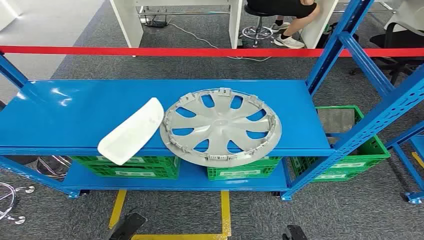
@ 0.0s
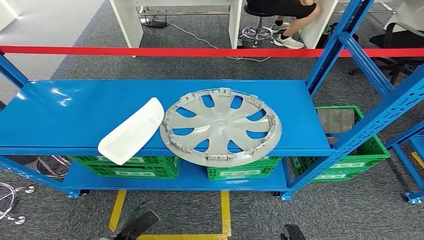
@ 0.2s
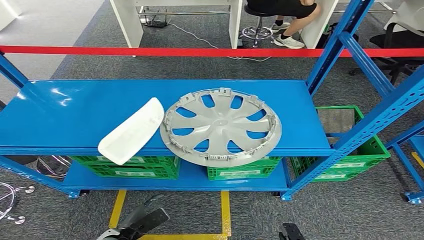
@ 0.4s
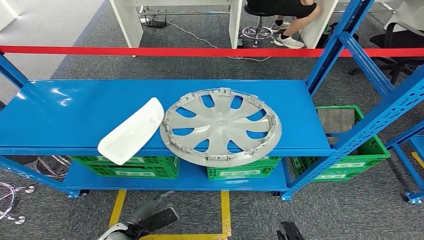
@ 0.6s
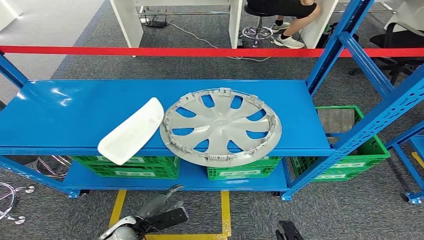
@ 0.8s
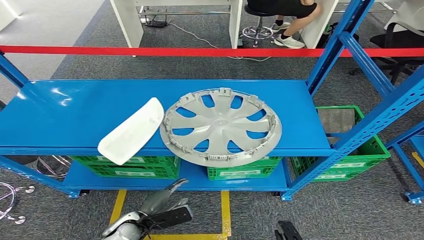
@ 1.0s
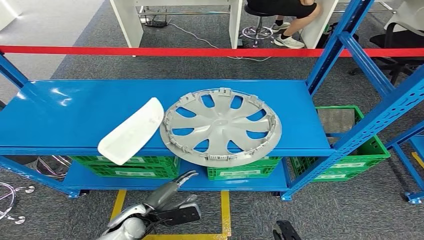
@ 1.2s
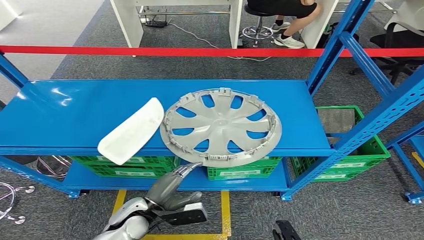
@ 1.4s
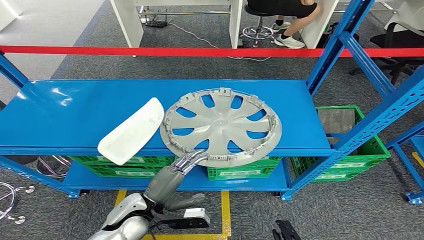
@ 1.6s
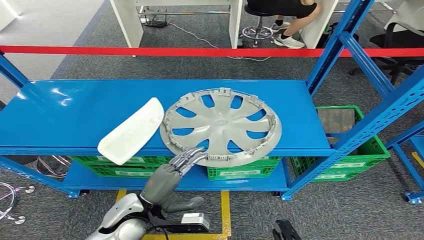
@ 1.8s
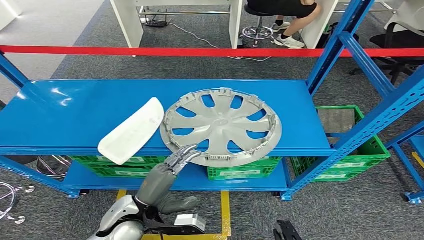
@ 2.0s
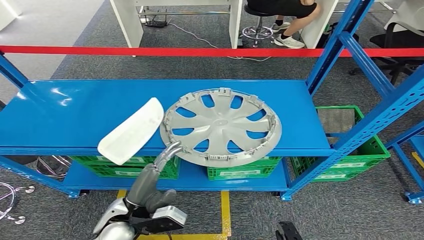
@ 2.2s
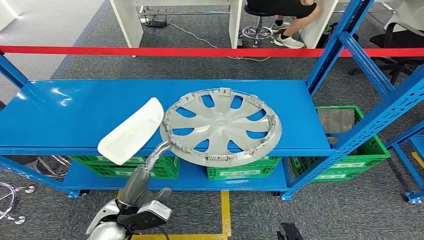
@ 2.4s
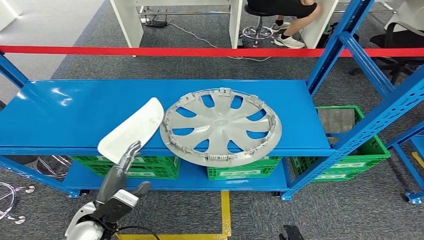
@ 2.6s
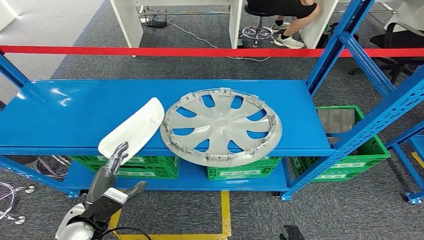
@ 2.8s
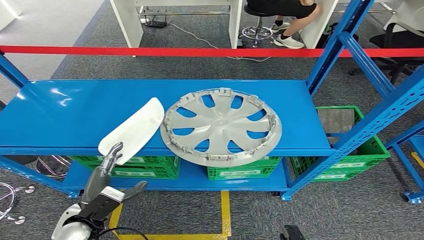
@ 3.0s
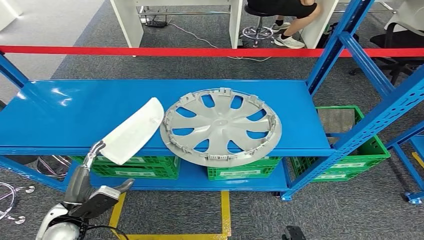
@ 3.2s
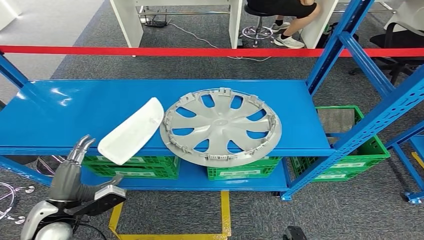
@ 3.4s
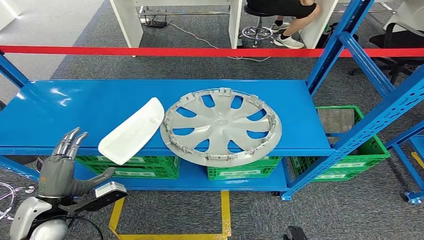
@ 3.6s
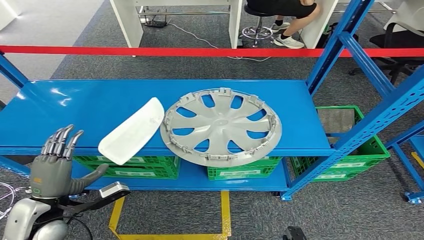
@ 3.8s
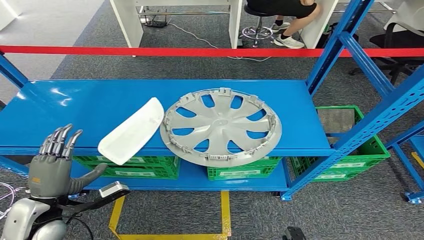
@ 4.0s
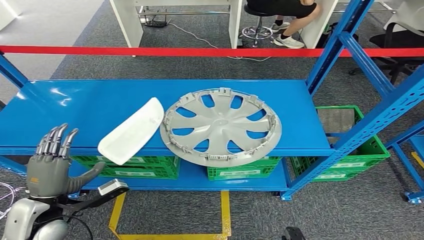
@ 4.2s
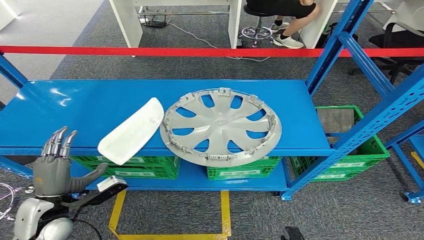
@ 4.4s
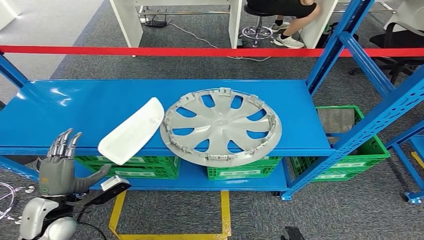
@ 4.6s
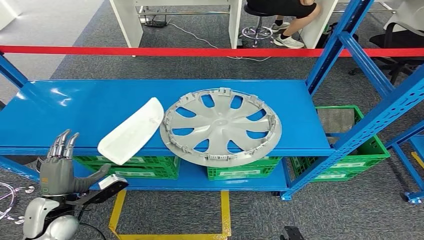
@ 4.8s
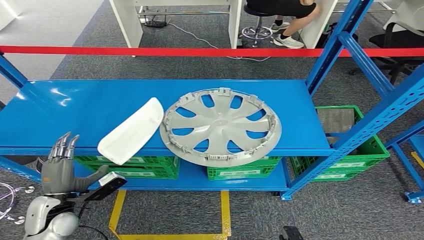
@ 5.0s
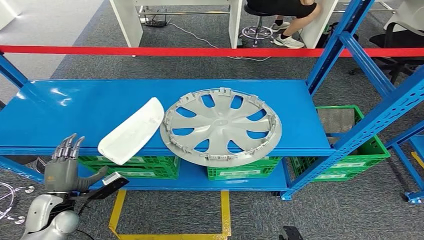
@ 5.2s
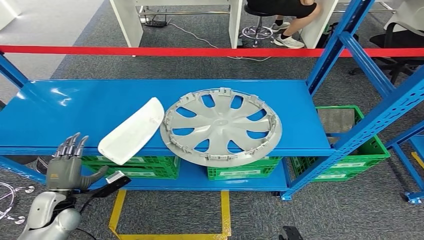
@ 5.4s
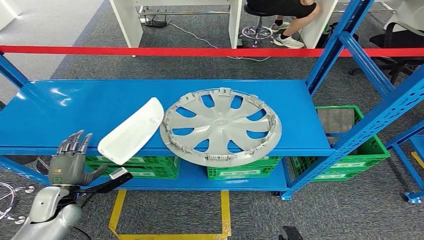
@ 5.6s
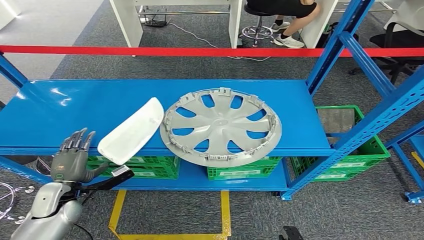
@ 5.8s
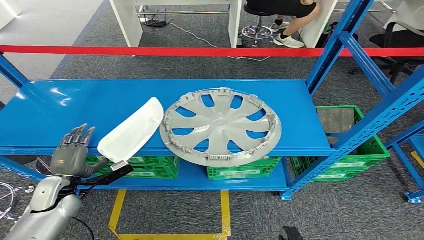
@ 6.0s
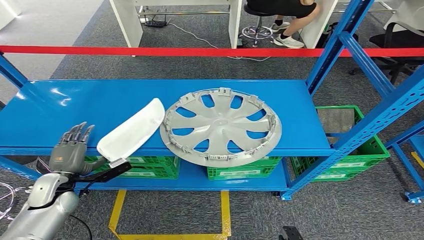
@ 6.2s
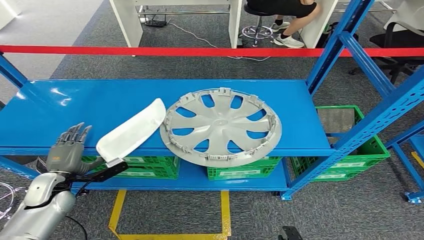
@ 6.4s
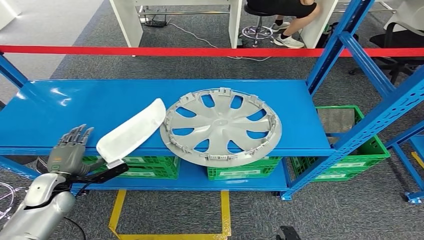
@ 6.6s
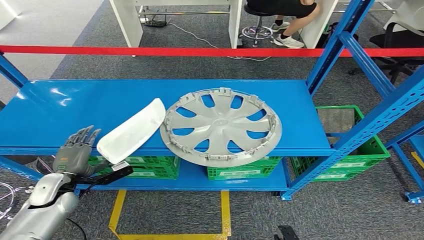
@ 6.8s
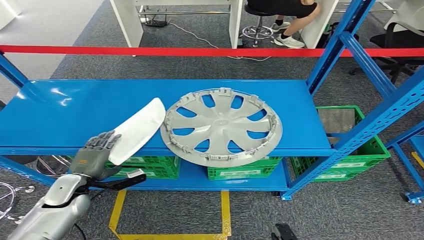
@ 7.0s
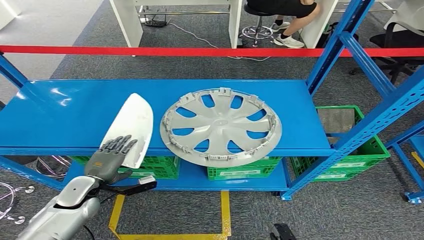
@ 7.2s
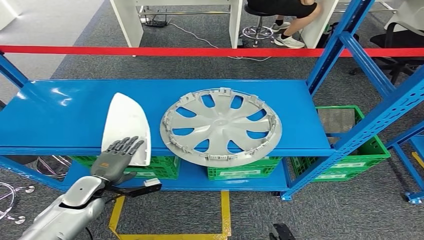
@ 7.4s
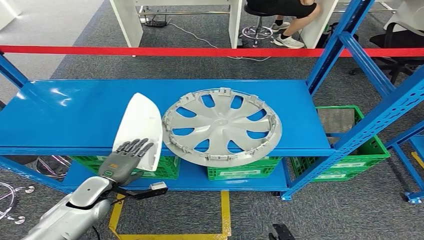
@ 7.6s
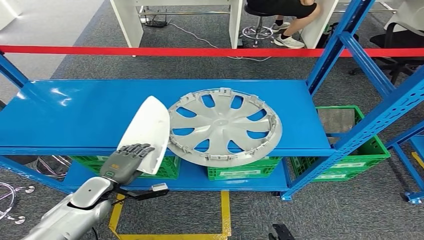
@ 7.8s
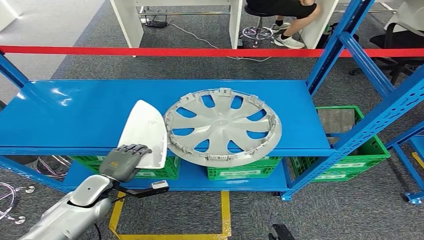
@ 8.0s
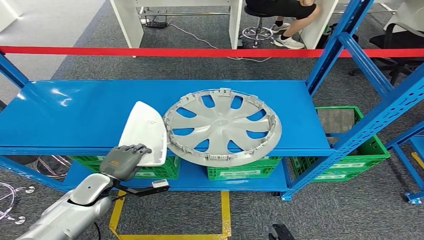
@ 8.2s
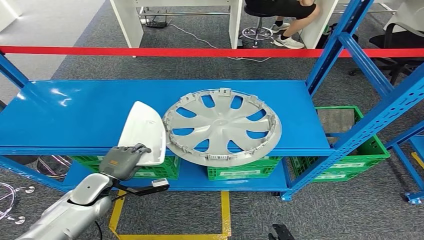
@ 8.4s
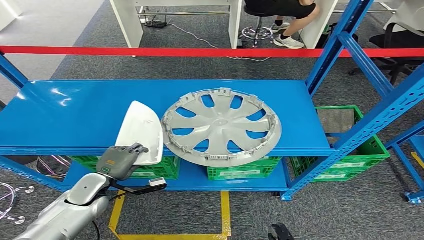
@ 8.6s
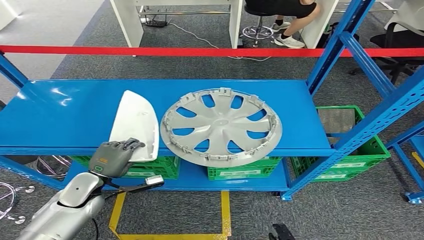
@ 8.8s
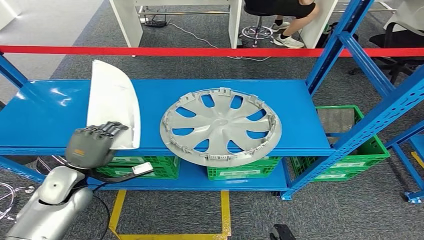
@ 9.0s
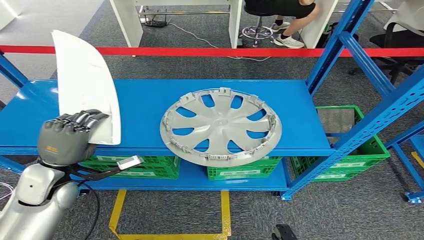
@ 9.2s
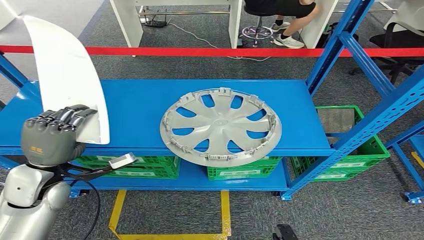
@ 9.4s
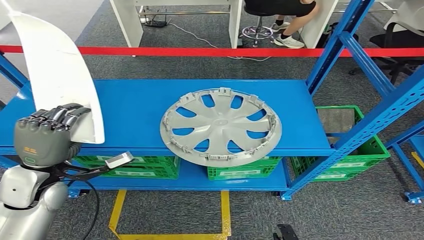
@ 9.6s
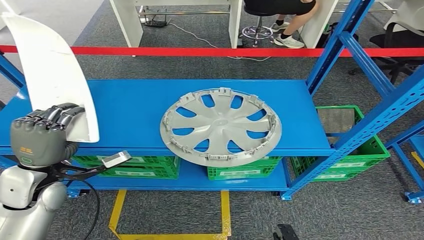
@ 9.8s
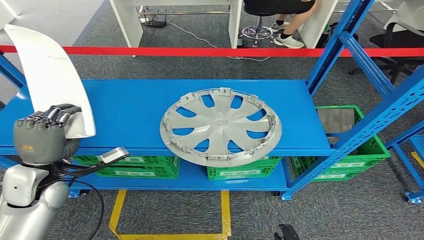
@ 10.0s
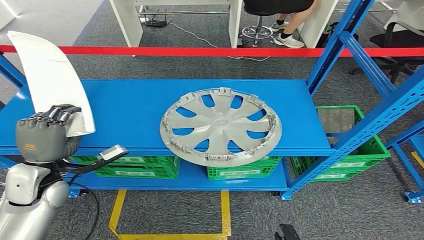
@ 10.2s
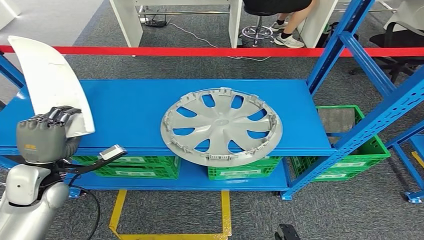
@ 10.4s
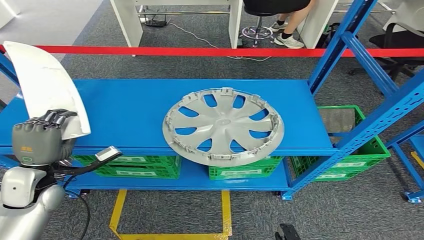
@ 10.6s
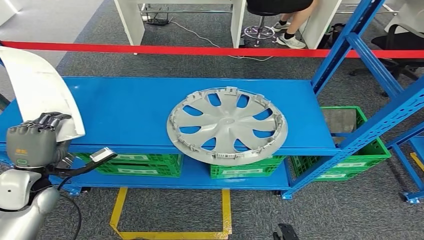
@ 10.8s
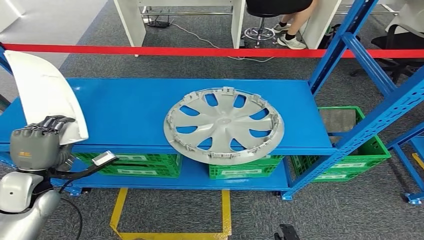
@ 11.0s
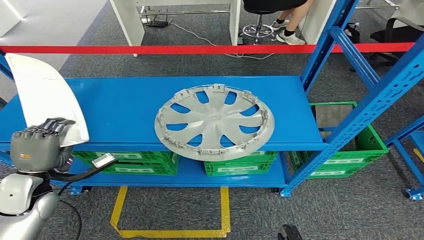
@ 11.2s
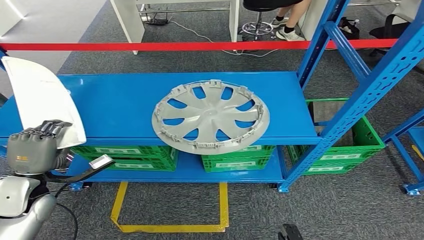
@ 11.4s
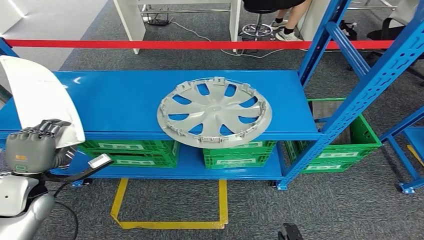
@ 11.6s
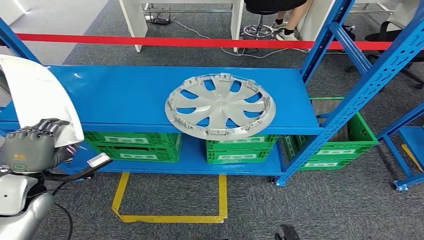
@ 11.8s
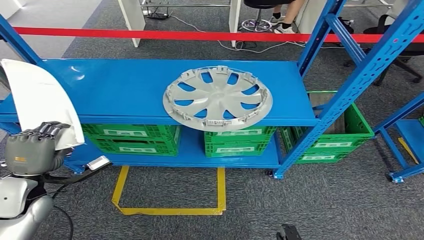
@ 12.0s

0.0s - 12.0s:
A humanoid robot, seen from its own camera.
1.6s - 3.0s: The left hand shifts roughly 10 cm to the left.
3.0s - 4.4s: The left hand heads to the left, covering approximately 5 cm.
4.4s - 6.0s: The left hand shifts approximately 5 cm forward.
6.0s - 7.6s: The left hand moves to the right, about 10 cm.
7.6s - 9.0s: The left hand heads upward, covering some 10 cm.
9.0s - 10.4s: The left hand shifts roughly 5 cm upward.

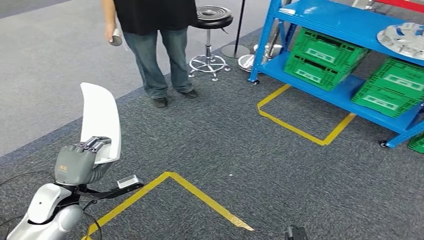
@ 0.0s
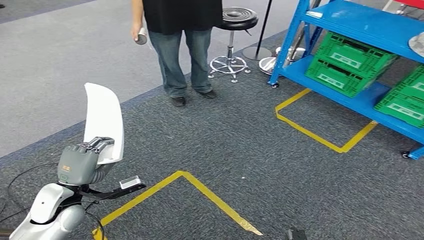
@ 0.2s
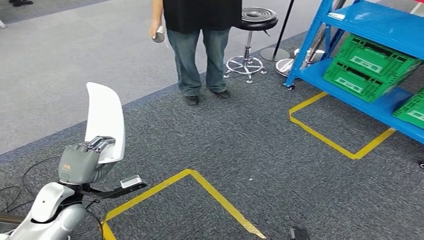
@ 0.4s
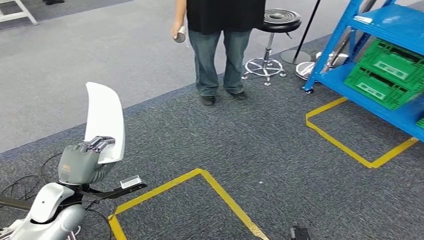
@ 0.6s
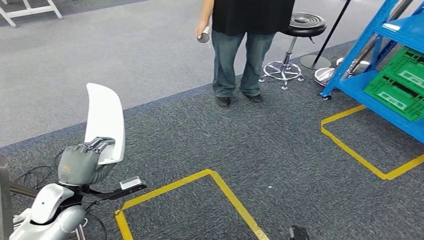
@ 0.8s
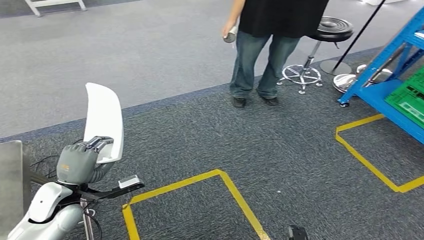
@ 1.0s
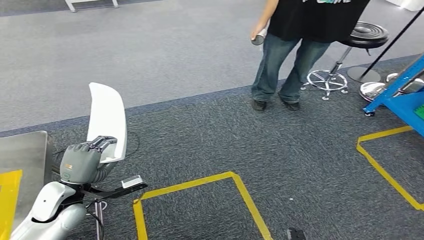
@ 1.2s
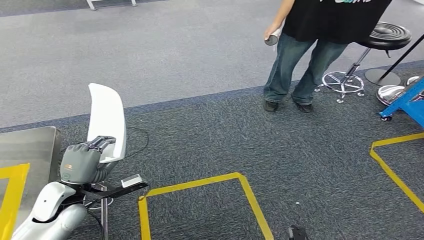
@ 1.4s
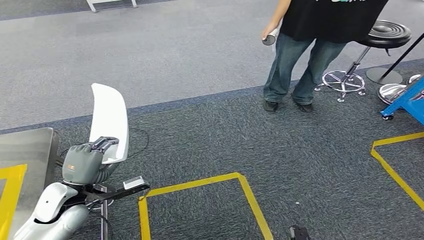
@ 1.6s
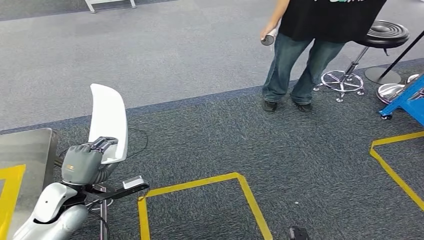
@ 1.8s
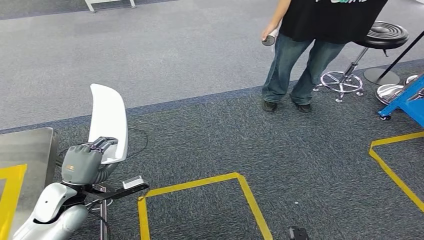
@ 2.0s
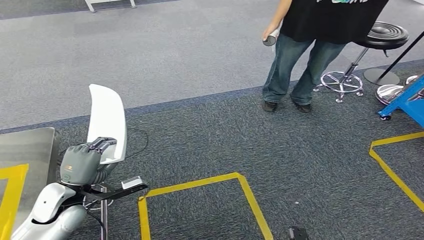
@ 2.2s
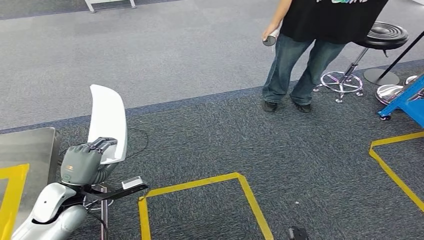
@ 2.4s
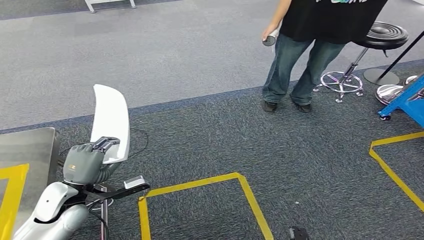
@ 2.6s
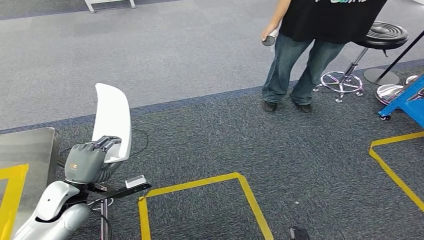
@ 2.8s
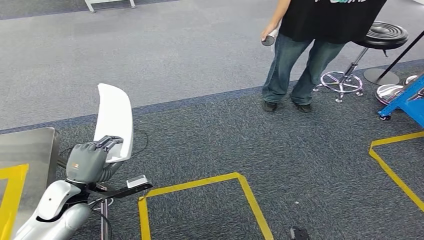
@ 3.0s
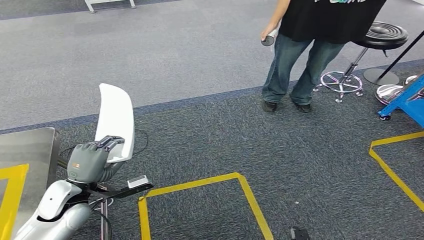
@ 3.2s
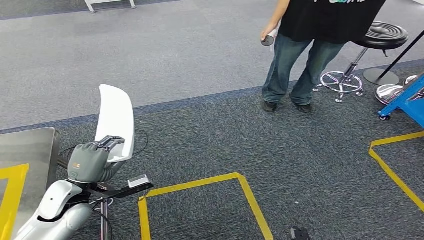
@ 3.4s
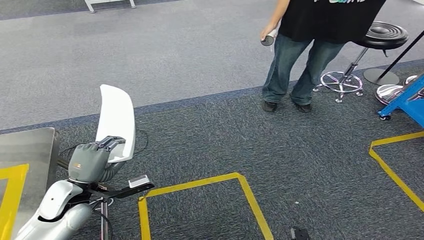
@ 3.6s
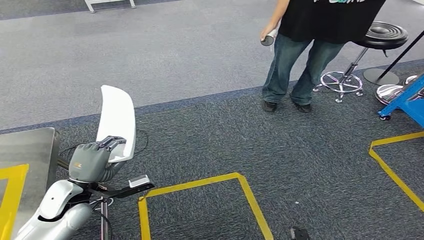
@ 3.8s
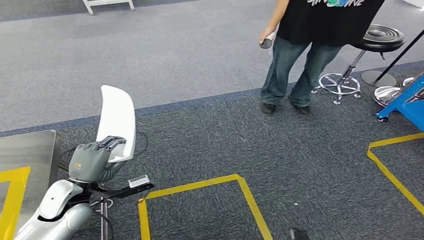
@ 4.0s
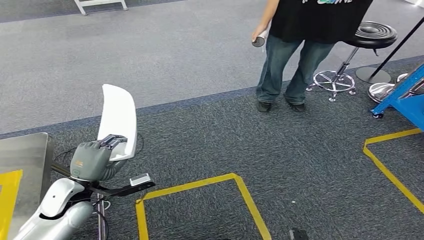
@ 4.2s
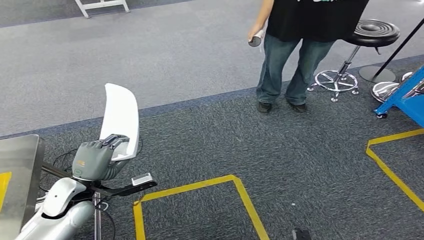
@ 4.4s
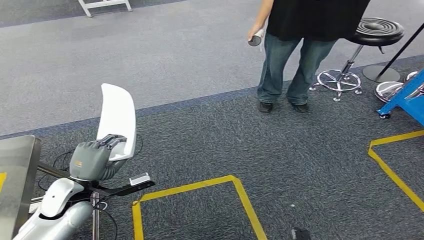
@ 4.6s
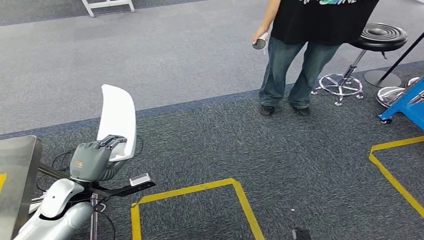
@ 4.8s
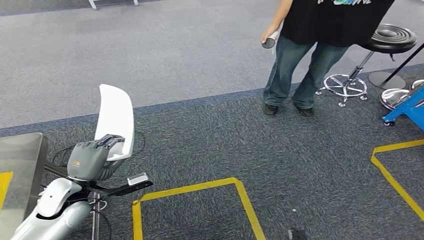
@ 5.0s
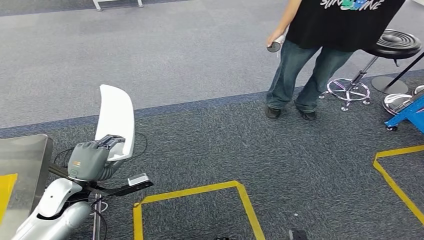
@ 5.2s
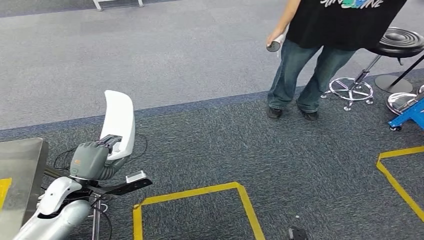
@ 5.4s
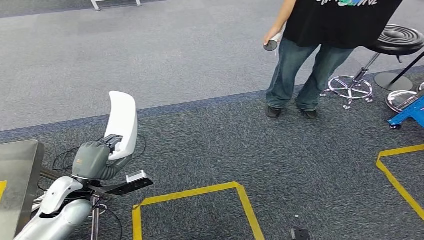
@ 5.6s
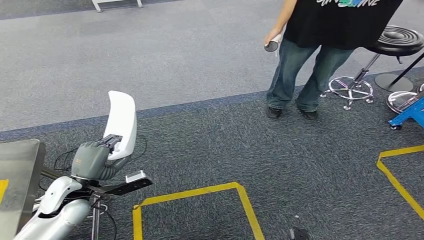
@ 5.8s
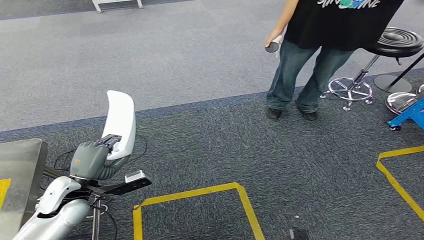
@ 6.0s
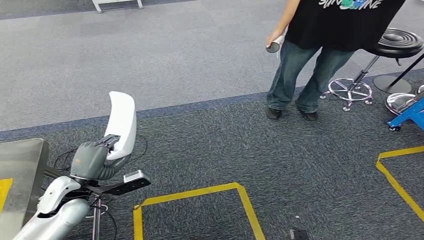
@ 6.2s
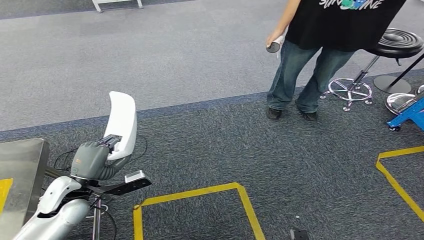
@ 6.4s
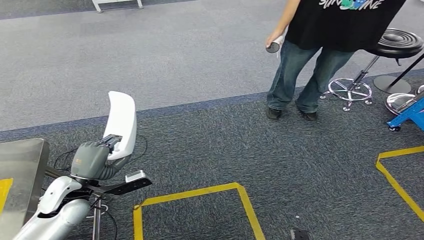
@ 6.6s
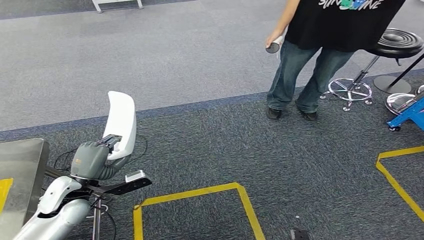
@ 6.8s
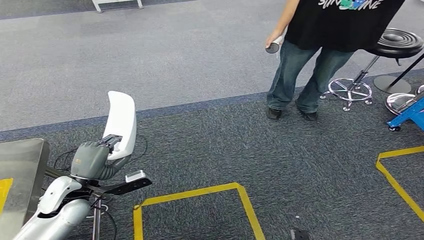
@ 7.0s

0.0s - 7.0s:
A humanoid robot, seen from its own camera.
1.4s - 4.2s: Both hands stay put.
5.6s - 7.0s: Both hands stay put.
